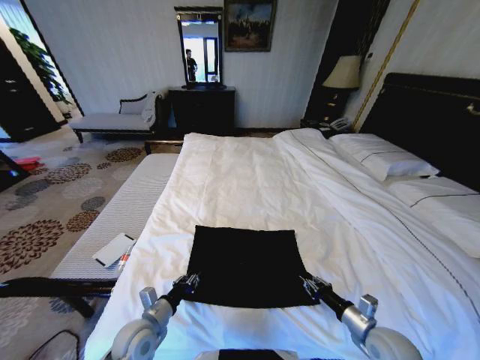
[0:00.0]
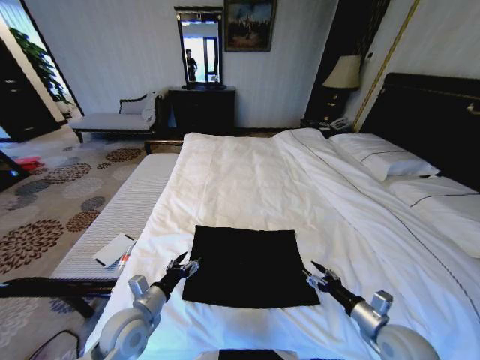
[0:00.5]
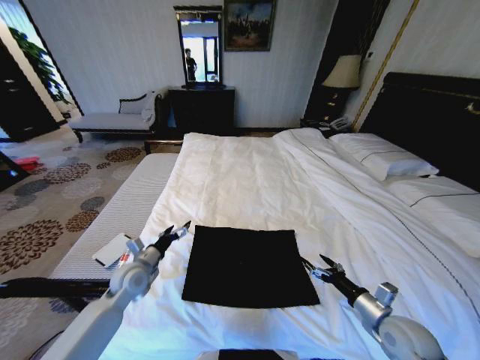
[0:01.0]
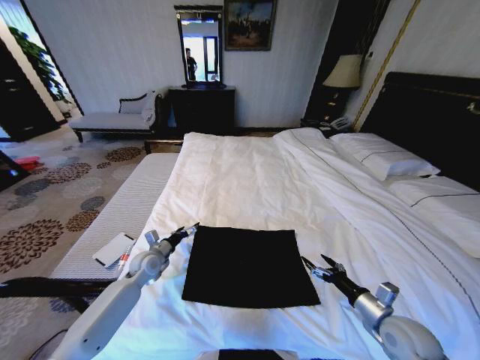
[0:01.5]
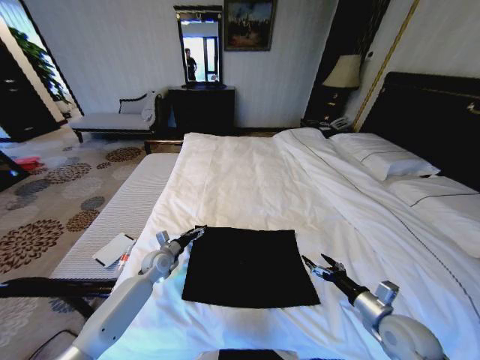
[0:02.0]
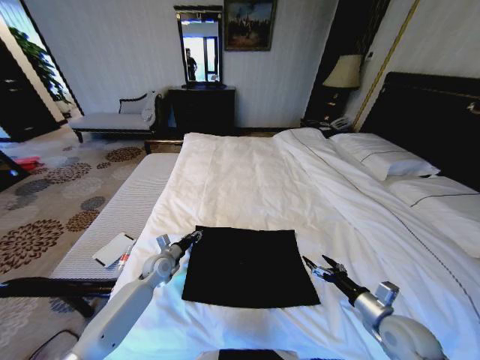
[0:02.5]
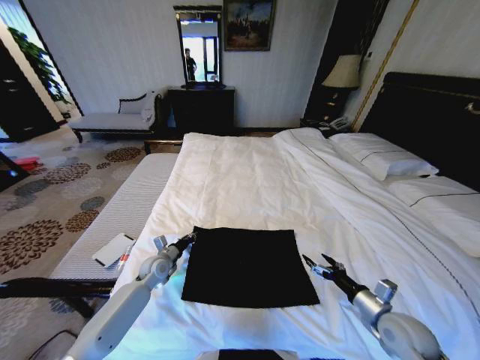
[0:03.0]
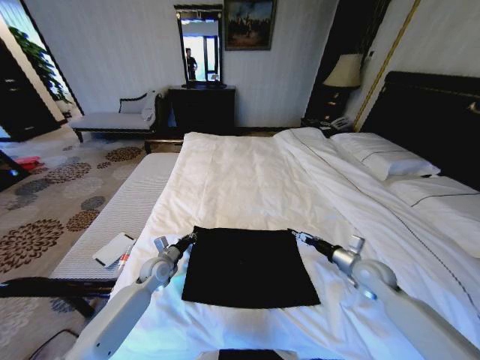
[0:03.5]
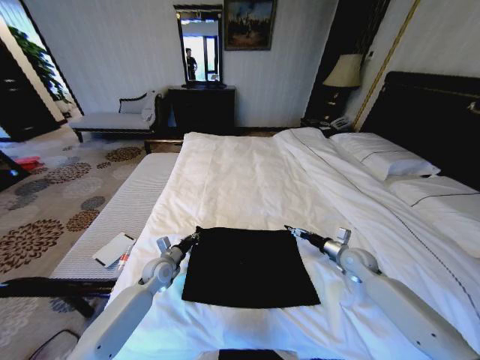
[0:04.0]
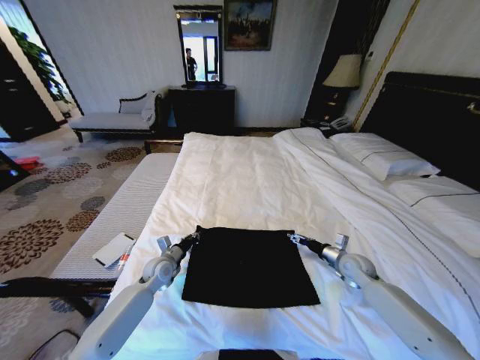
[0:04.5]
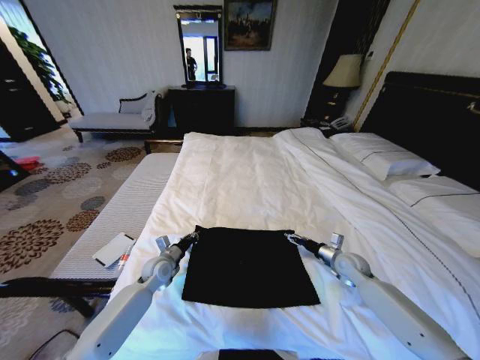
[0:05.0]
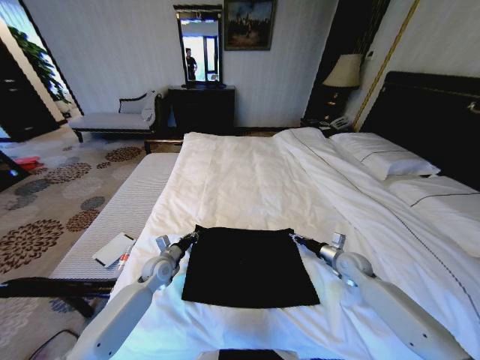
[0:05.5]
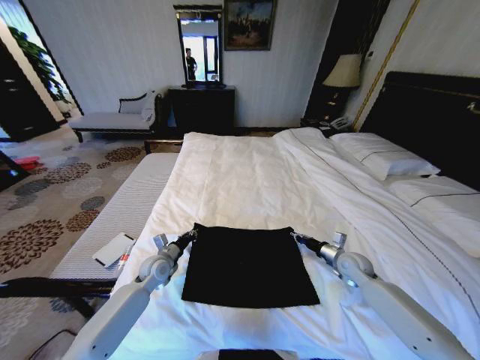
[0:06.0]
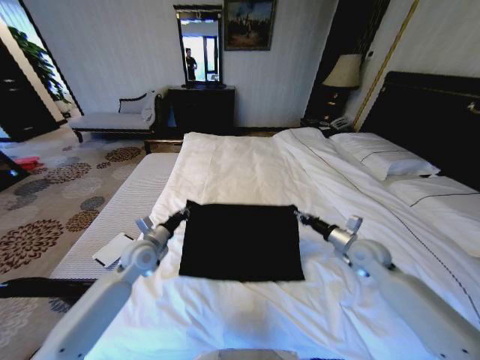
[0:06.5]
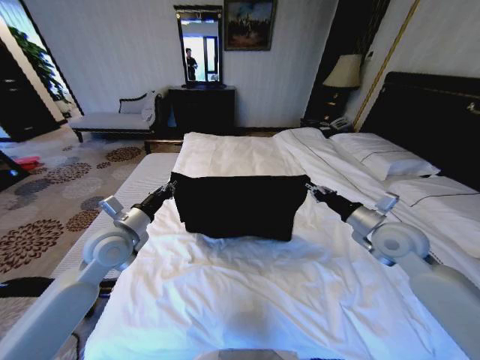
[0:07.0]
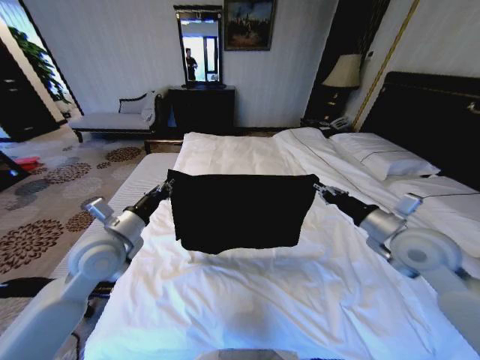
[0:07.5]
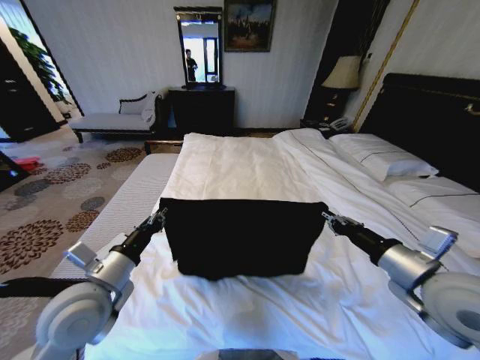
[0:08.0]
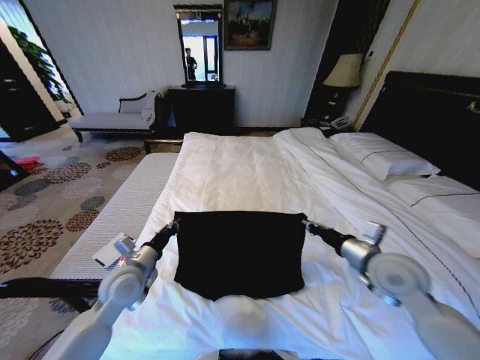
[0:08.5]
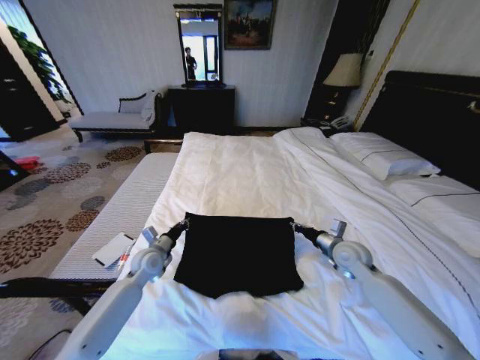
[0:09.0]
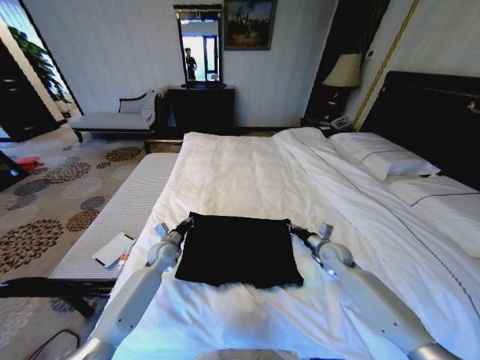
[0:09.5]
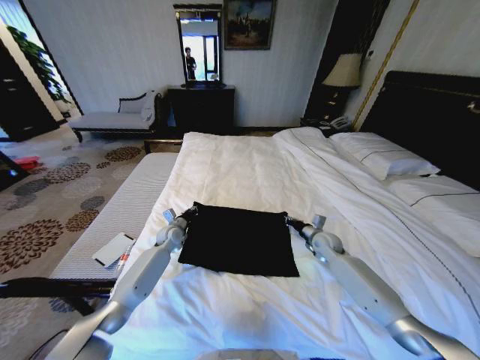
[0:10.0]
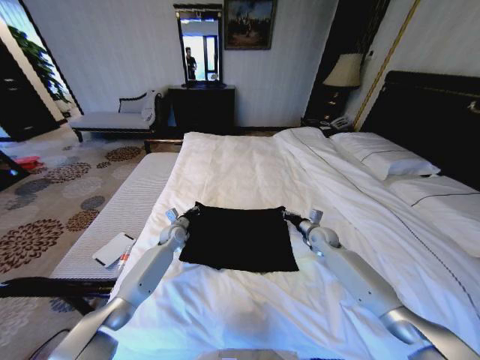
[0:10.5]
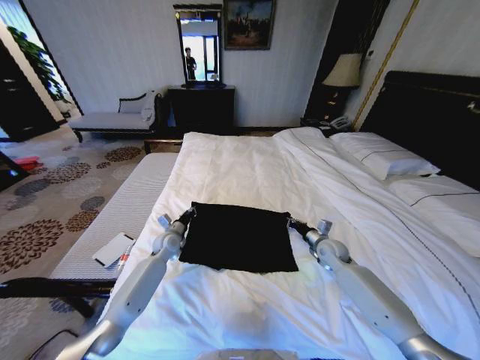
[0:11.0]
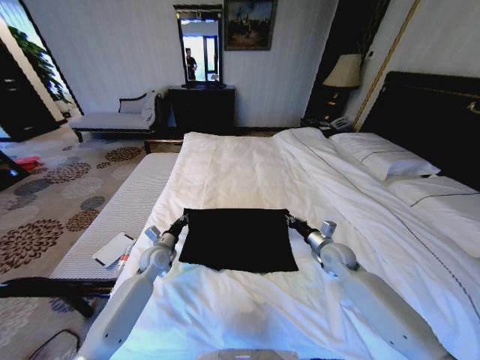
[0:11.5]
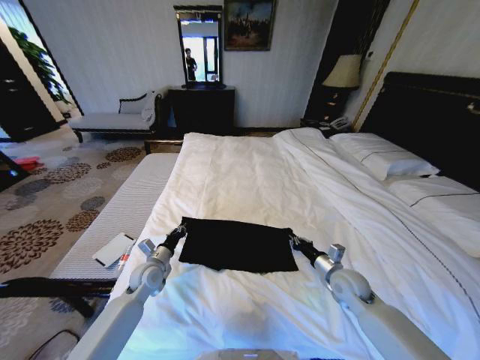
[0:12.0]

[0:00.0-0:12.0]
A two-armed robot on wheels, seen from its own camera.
Task of the whole recording: Fold the clothes on the bed.
0:00.0 to 0:02.0: The left gripper goes some 20 cm forward, and opens up. Meanwhile the right gripper shifts by some 5 cm, and opens.
0:02.0 to 0:04.0: The right gripper moves forward, about 20 cm. The left gripper closes its fingers.
0:04.0 to 0:06.0: The right gripper closes its fingers.
0:06.0 to 0:08.0: The two grippers go some 30 cm upward and backward.
0:08.0 to 0:10.0: The grippers both shift forward and downward by about 35 cm.
0:10.0 to 0:12.0: The grippers both shift backward by approximately 15 cm.

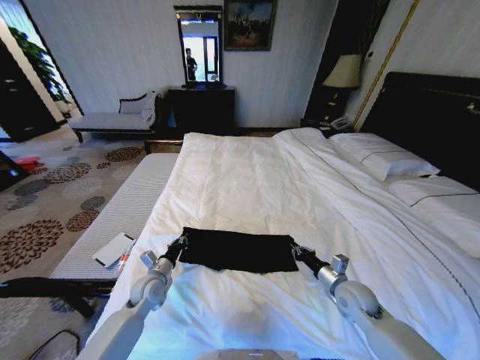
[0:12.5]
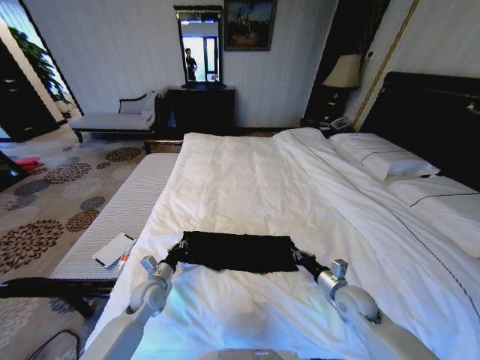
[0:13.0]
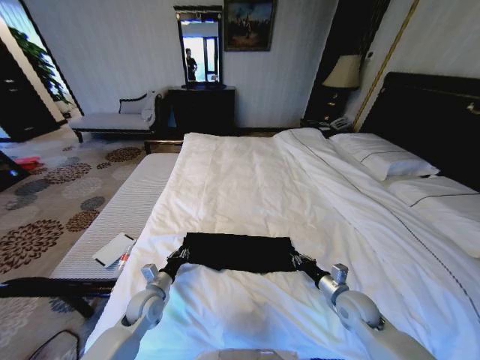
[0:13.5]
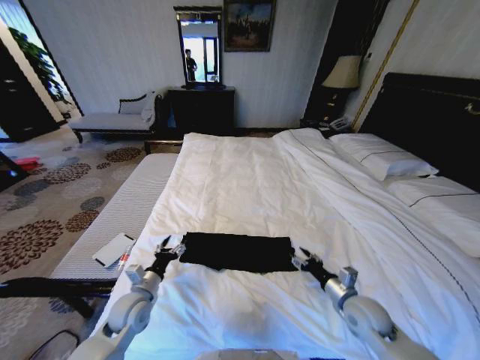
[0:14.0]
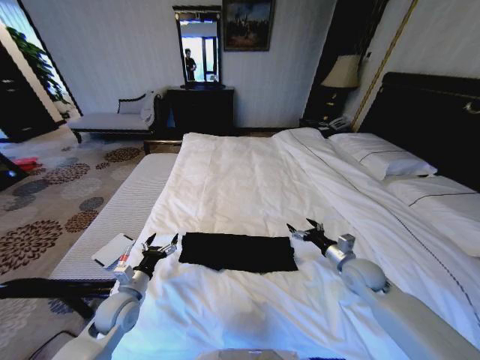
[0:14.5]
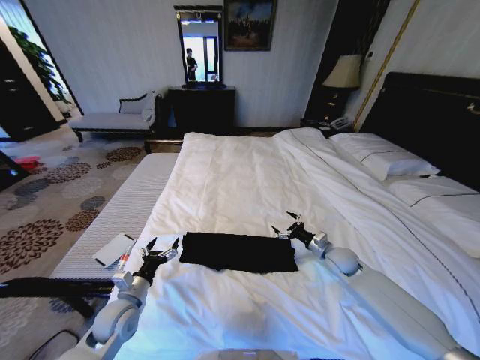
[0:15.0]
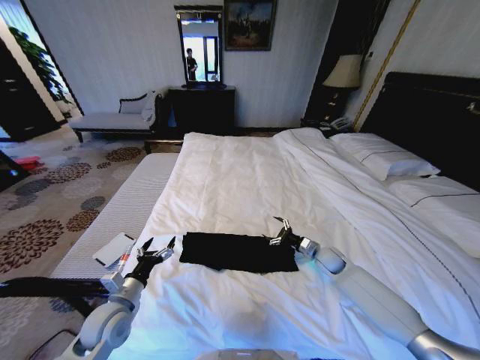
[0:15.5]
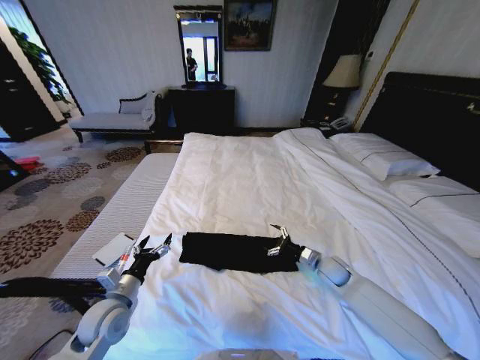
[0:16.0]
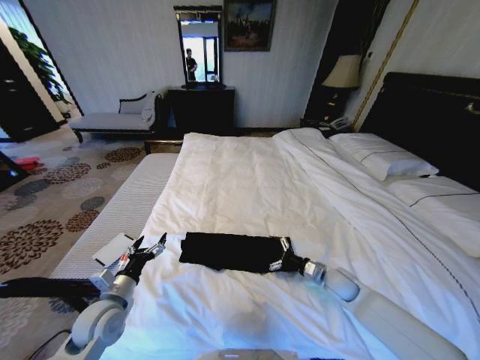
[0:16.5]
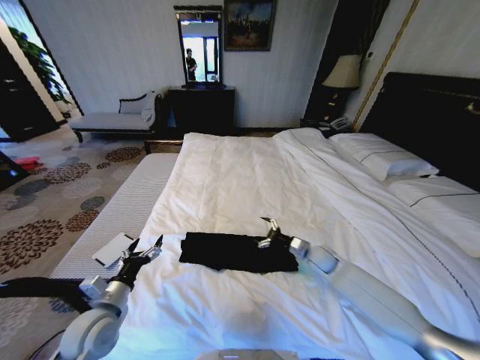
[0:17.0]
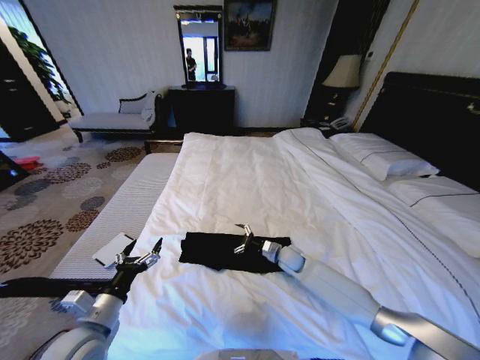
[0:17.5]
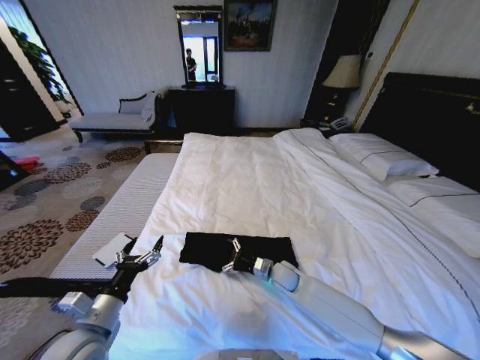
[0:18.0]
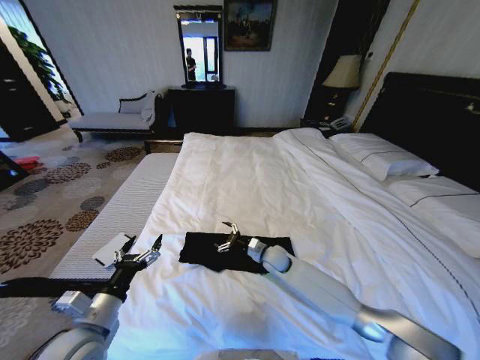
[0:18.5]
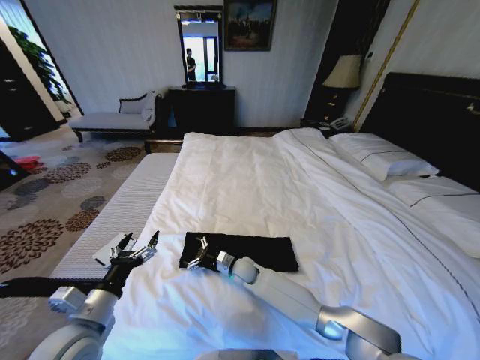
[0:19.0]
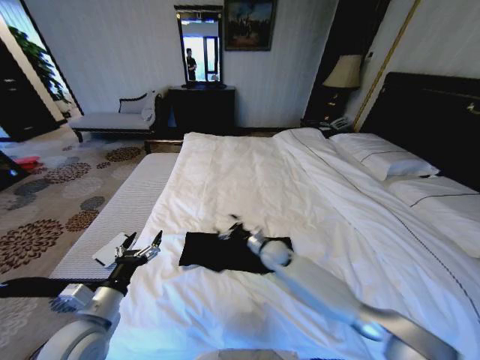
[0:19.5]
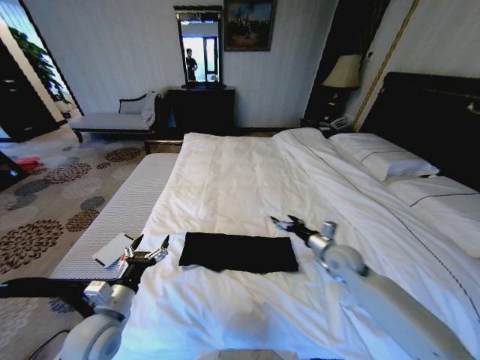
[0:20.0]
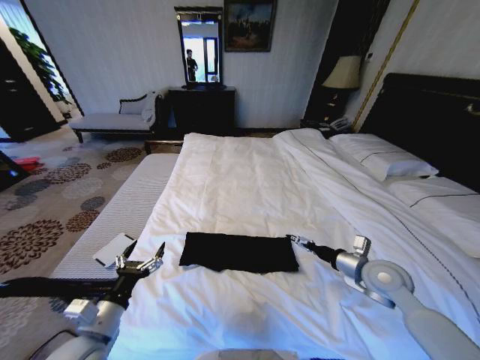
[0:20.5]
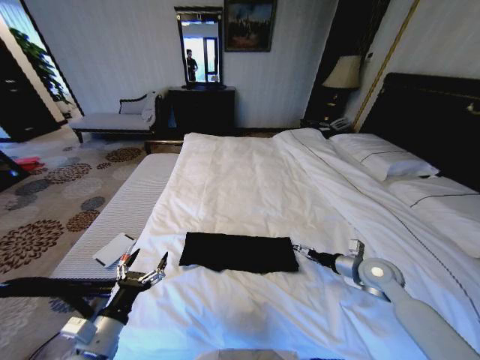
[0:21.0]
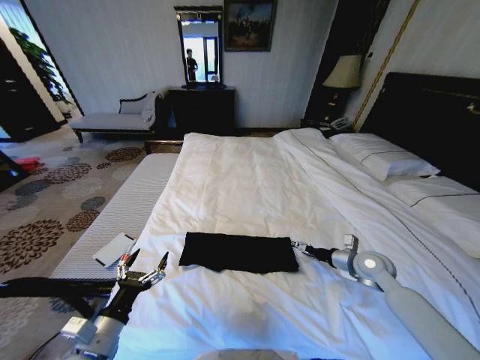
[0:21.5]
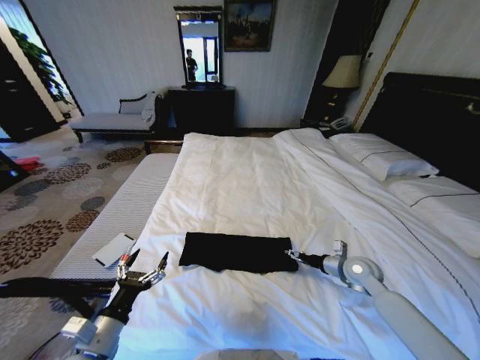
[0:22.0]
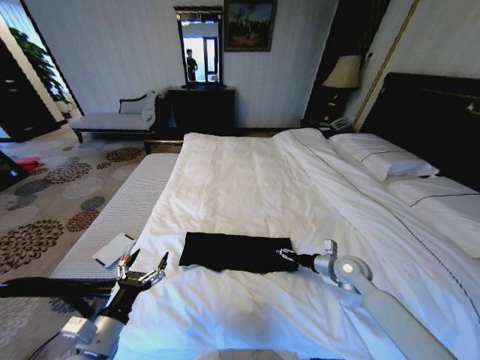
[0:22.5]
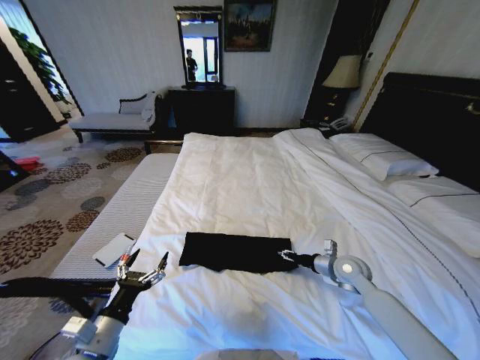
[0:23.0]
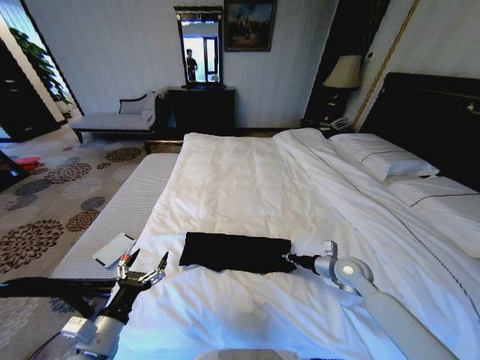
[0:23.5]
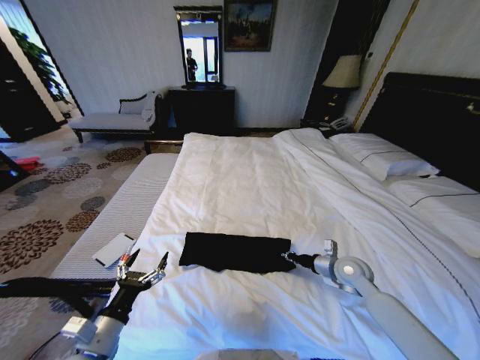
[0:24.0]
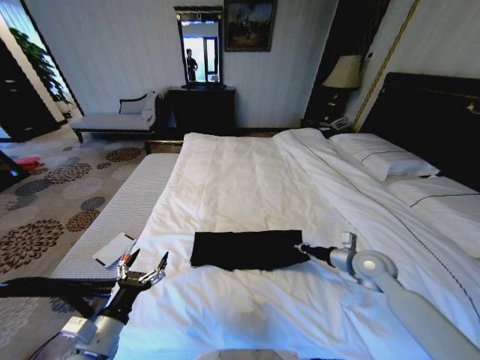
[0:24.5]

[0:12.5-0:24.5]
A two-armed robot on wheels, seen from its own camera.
Task of the whole recording: Fold the clothes on the bed.
0:12.5 to 0:14.5: The right gripper ends up about 5 cm from where it was, and opens up; the left gripper goes about 5 cm backward, and opens its fingers.
0:14.5 to 0:16.5: The right gripper travels downward by about 5 cm, and reaches roughly 10 cm forward, then returns.
0:16.5 to 0:18.5: The right gripper shifts some 20 cm to the left and forward. Meanwhile the left gripper goes approximately 10 cm backward and upward.
0:18.5 to 0:20.5: The right gripper is displaced to the right, upward and backward by approximately 30 cm.
0:20.5 to 0:22.5: The right gripper heads downward and forward, covering roughly 10 cm.
0:22.5 to 0:24.5: The right gripper heads upward, covering about 5 cm, and closes its fingers.

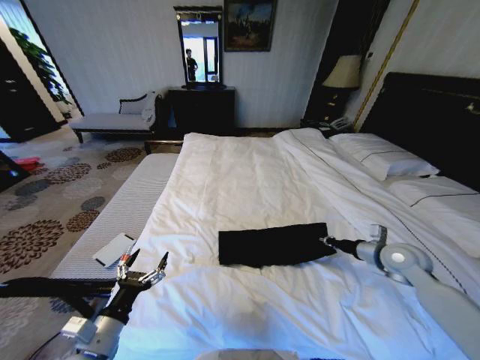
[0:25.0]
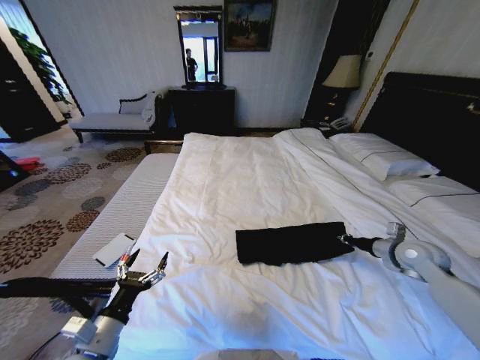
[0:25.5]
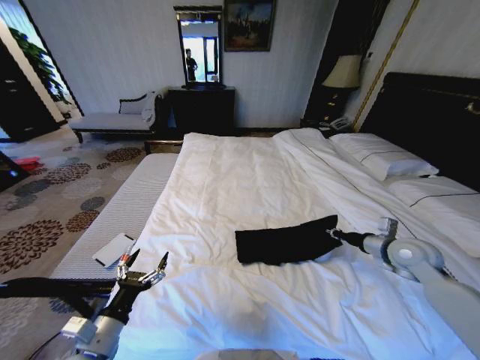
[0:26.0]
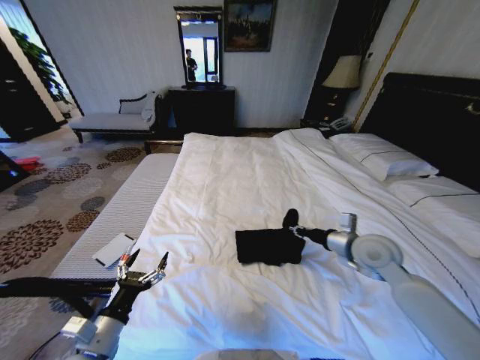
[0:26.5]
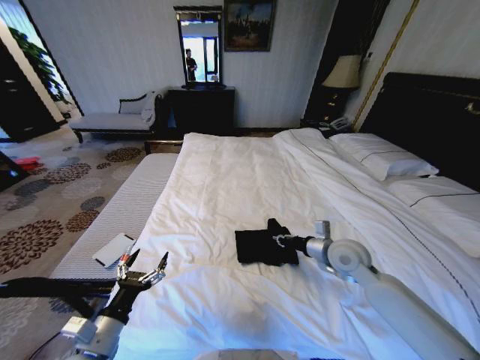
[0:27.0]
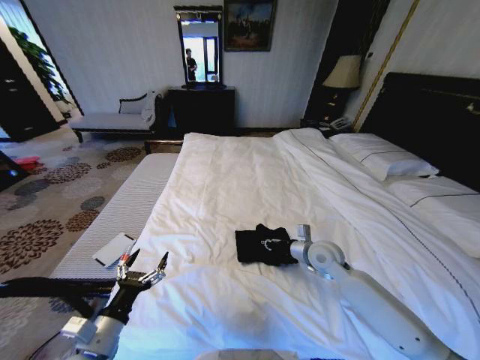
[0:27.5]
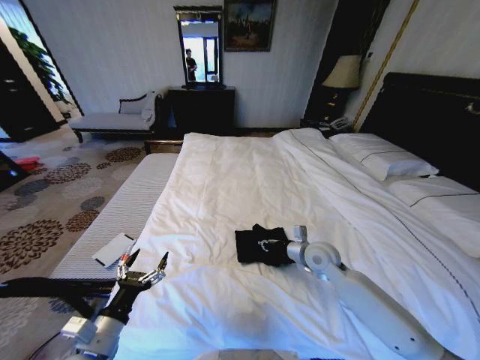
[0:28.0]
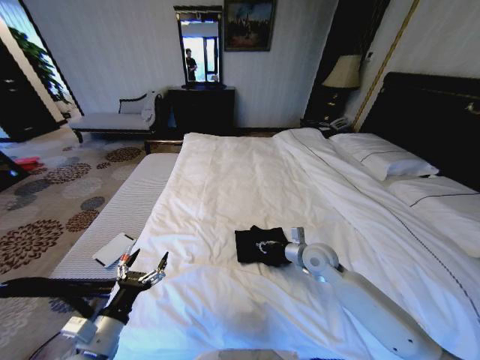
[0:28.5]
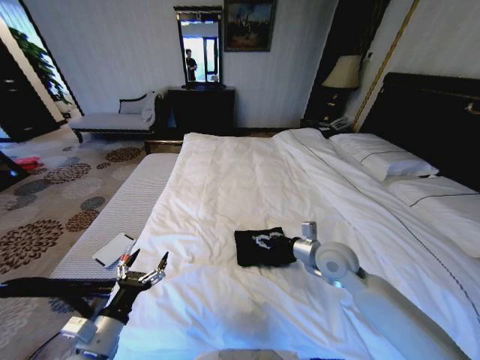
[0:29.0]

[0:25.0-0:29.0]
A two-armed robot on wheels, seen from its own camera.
Task of the whole recording: Fold the clothes on the bed.
0:25.0 to 0:27.0: The right gripper moves to the left, roughly 15 cm.
0:27.0 to 0:29.0: The right gripper opens its fingers.
